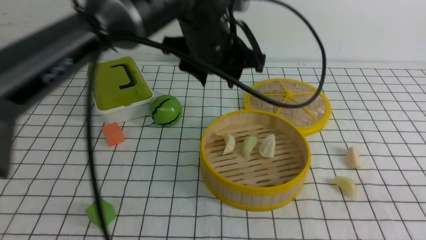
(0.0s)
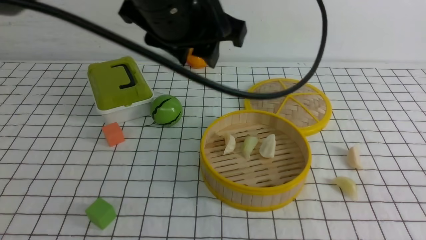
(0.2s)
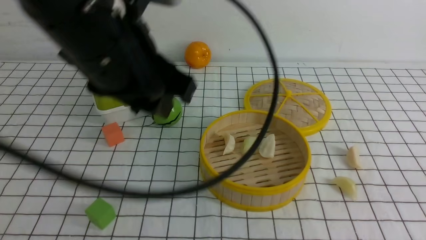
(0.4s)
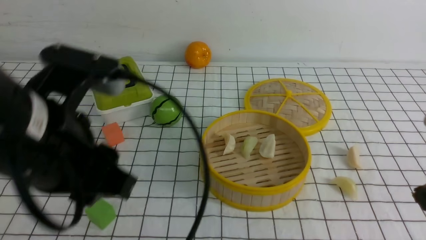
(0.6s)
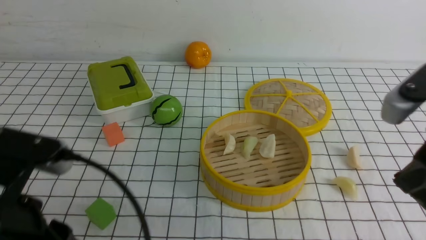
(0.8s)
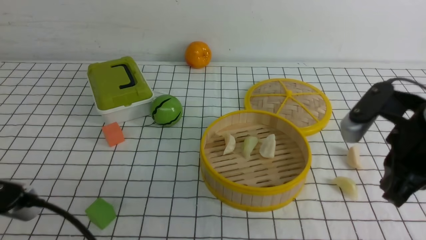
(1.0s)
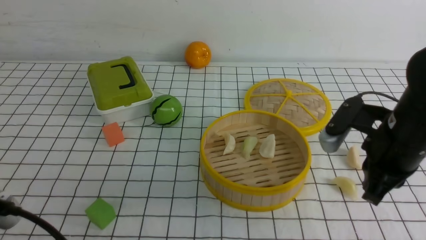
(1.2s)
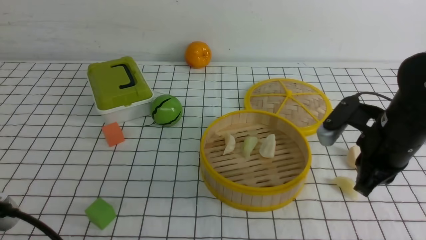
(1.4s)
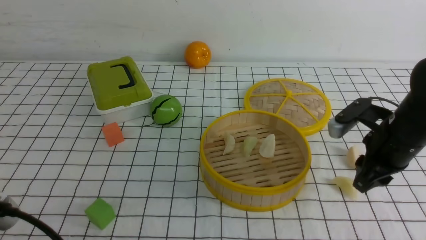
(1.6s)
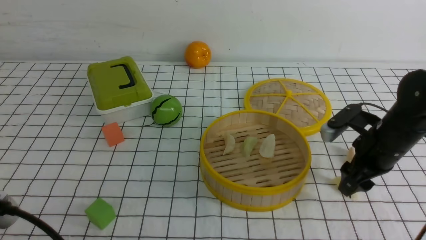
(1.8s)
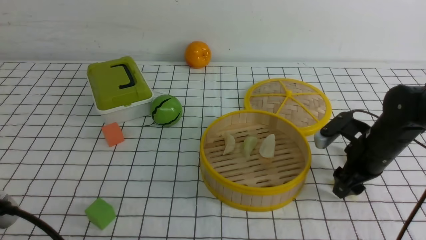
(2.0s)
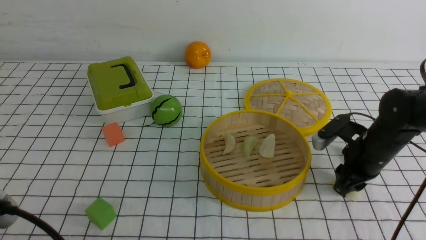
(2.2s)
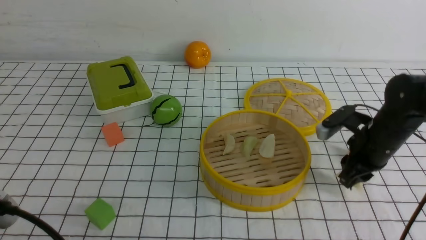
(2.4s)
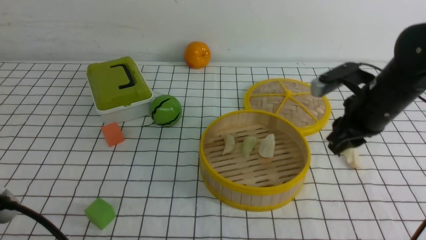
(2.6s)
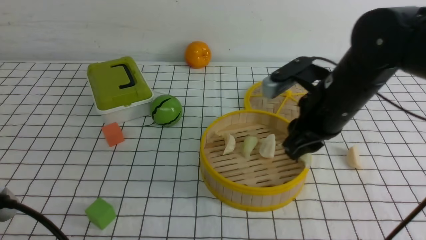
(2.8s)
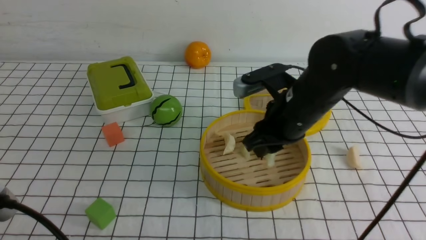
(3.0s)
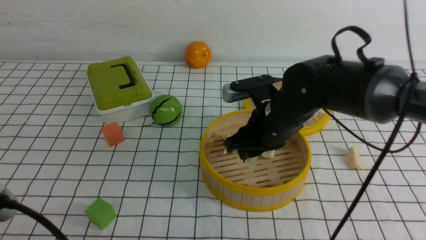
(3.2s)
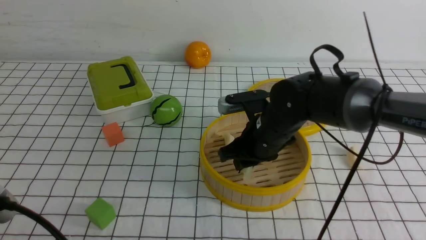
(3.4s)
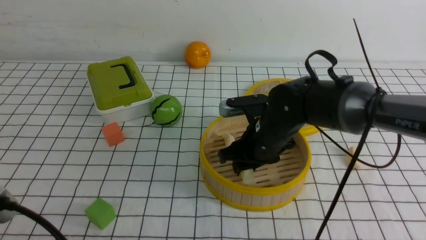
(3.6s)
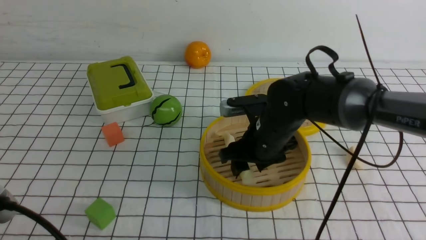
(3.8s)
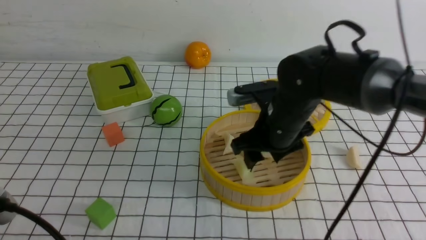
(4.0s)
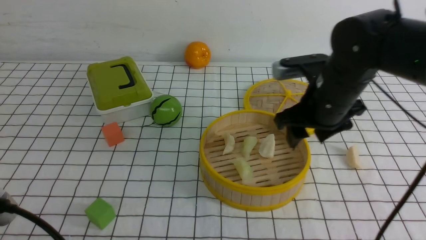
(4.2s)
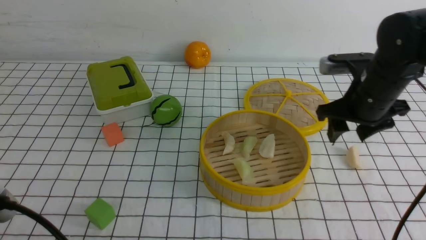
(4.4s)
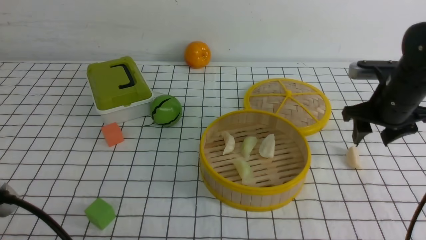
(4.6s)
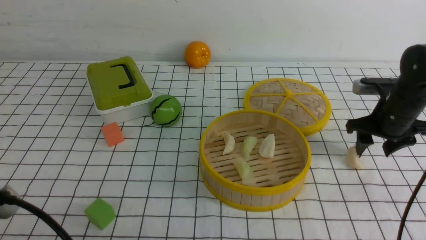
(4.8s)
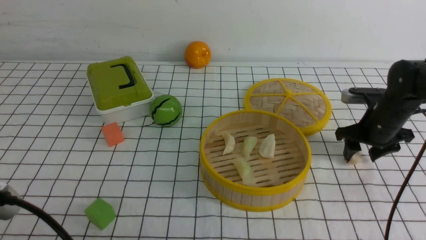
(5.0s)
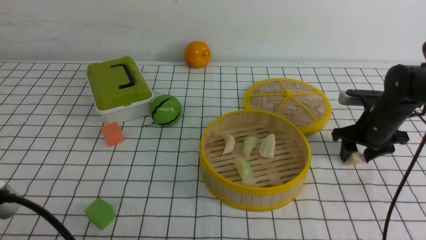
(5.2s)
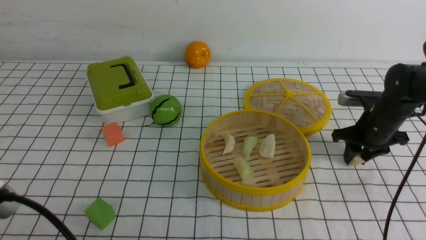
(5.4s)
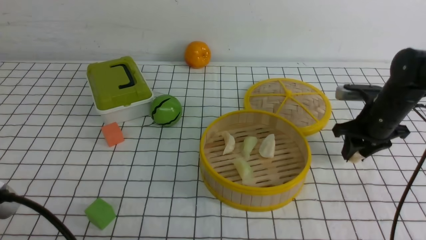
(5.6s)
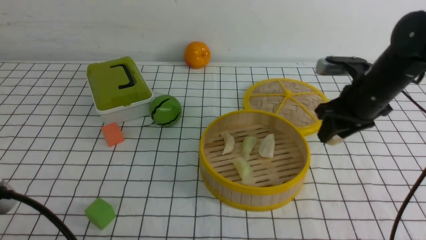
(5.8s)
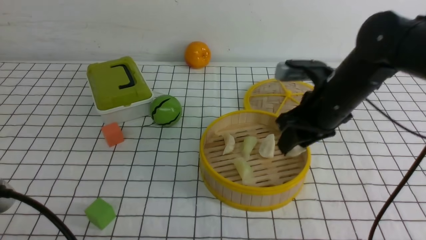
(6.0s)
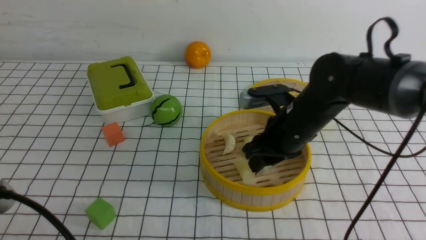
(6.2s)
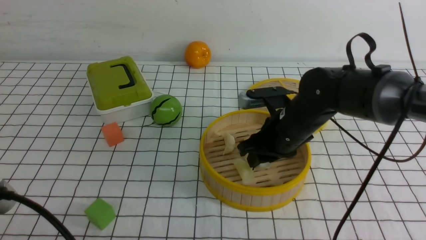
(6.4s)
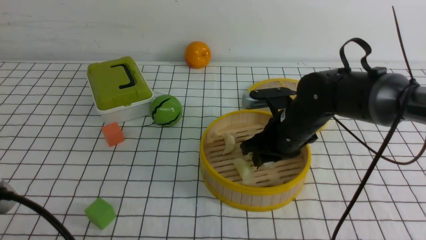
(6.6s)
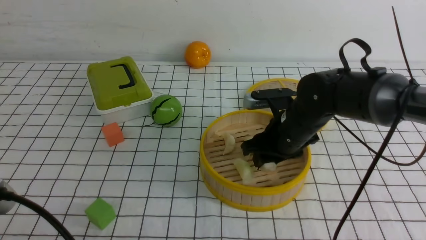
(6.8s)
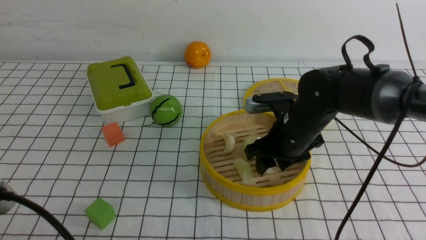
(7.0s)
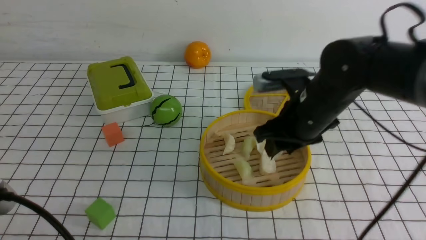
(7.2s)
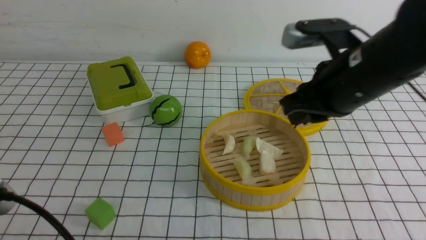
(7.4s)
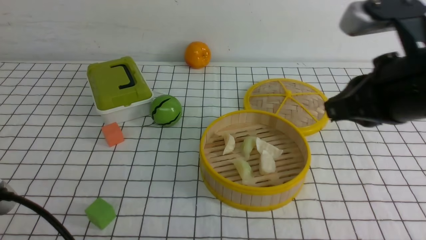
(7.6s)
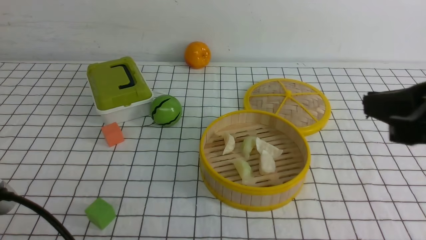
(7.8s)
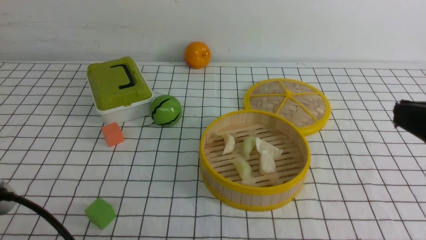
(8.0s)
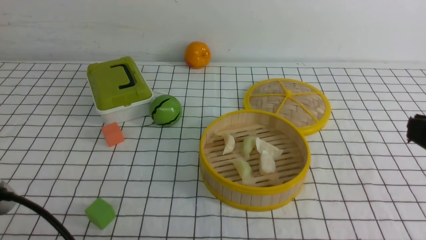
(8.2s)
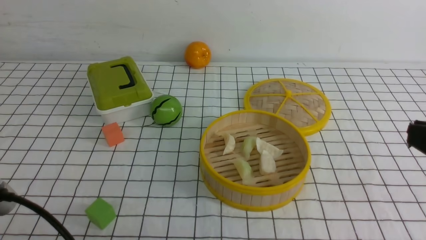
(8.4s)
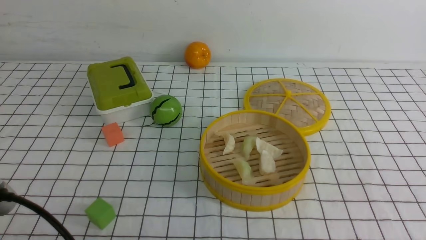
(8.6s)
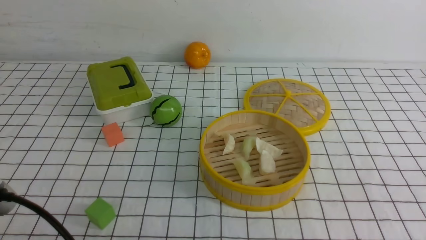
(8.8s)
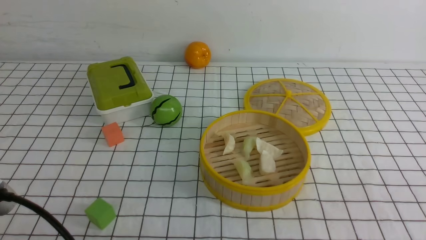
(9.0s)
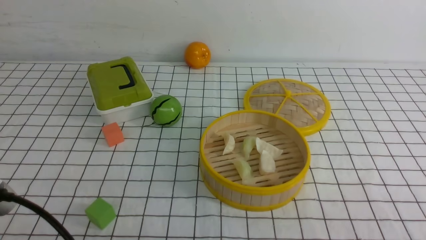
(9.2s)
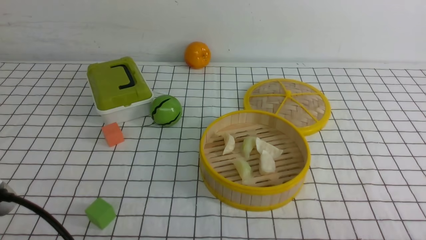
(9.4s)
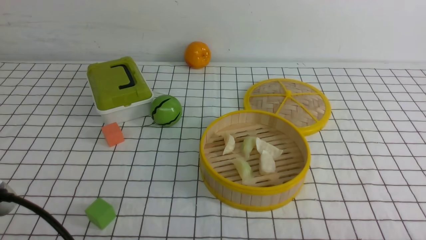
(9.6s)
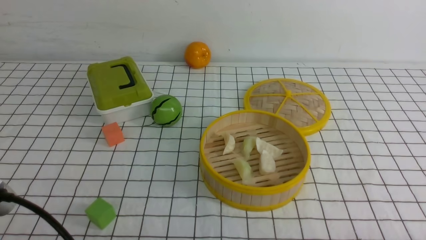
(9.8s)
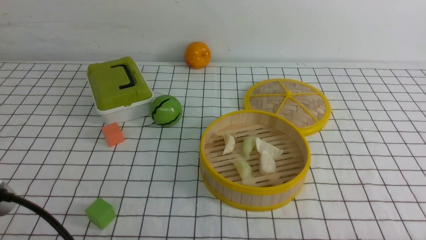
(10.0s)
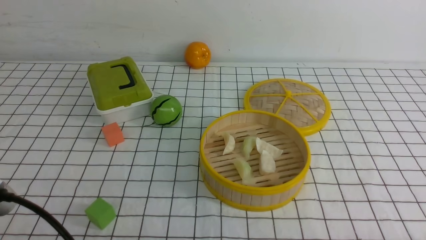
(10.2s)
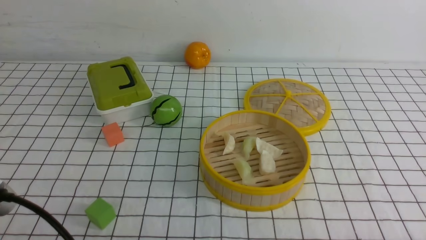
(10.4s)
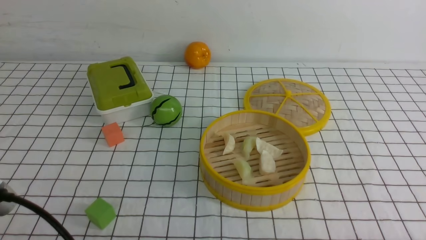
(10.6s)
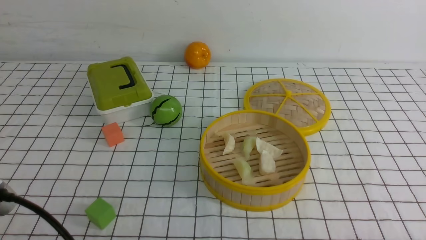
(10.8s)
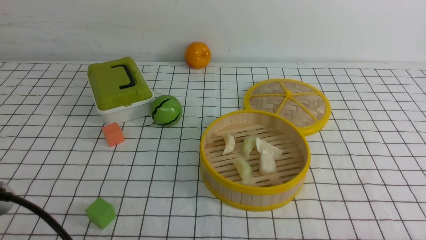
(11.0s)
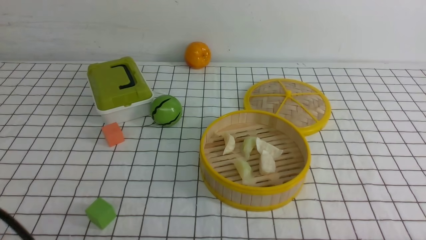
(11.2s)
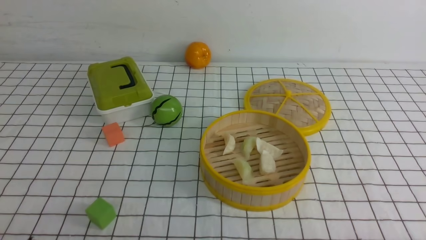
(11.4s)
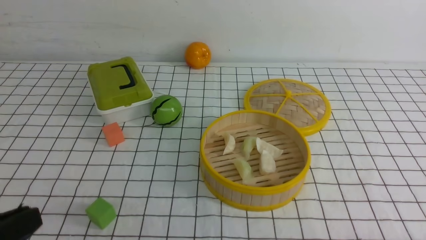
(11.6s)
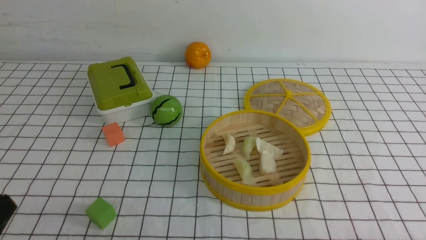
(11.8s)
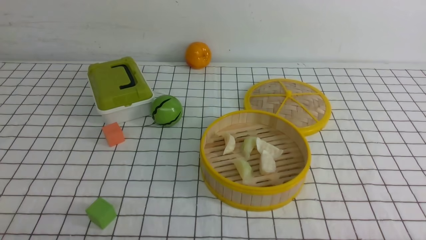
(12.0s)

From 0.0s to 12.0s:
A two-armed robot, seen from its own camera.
Task of the whole recording: put the dumplings into the steamer on the table with the white tablecloth.
Step, from 0.0s to 2.8s: use the right arm to grab a dumpling.
Step, from 3.0s to 4.0s: use the right arm to put the dumpling into the steamer.
Step, from 4.2s to 5.6s: use the right arm to grab a dumpling.
Step, from 5.8s to 7.6s: use the right arm to put the dumpling into the steamer.
From 0.0s to 1.6s: The right gripper moves forward and downward, about 25 cm, and opens. Meanwhile the left gripper heads backward and to the left, covering about 35 cm, and closes its fingers.
From 1.6s to 3.0s: The right gripper goes roughly 15 cm to the left.
From 3.0s to 4.4s: The right gripper is displaced to the right by about 10 cm, and opens.
From 4.4s to 6.0s: The right gripper is displaced to the left by approximately 5 cm, and closes up.
From 6.0s to 7.6s: The right gripper goes approximately 20 cm backward and upward, and closes.
From 7.6s to 9.0s: The right gripper shifts about 20 cm backward, to the right and downward.
From 10.4s to 12.0s: The left gripper travels downward and to the left by some 10 cm.

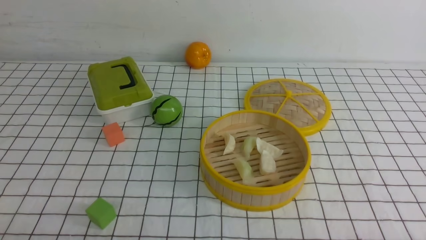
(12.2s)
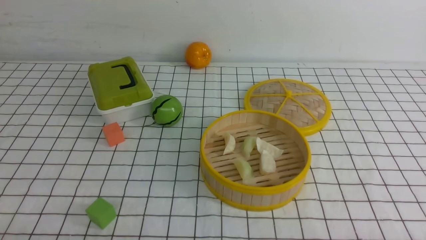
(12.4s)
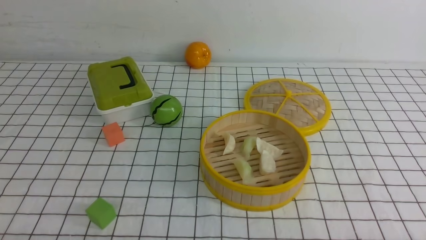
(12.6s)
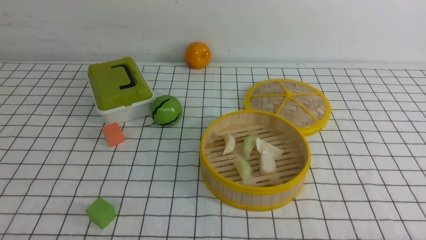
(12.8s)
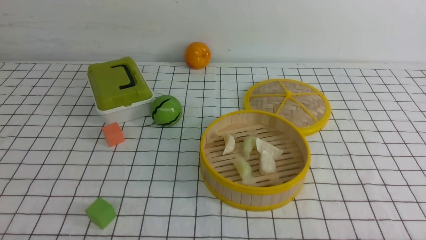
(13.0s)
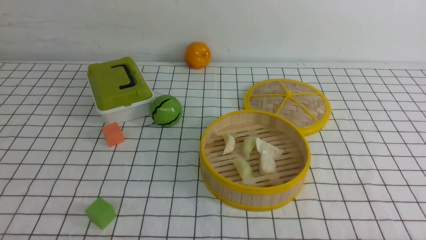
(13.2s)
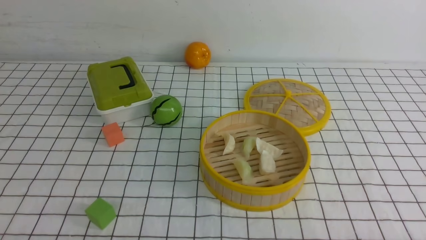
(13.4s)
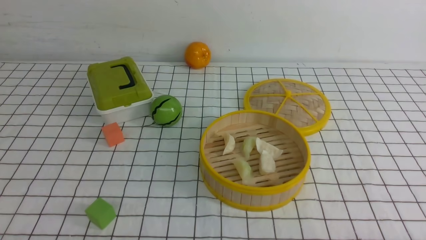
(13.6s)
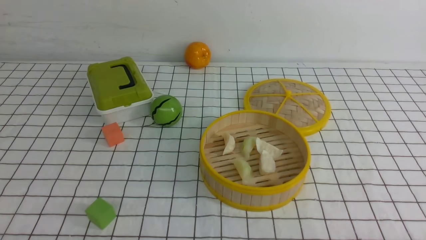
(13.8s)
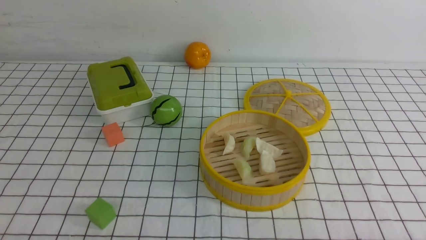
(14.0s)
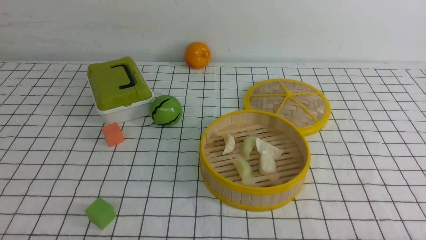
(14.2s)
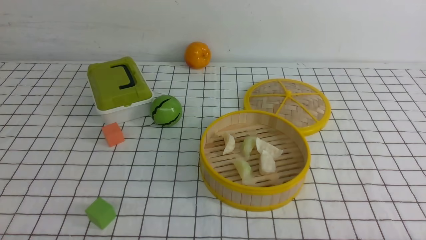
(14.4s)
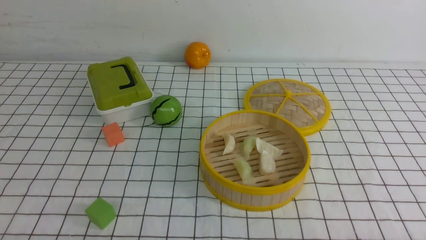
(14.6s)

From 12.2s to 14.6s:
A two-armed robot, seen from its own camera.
Task of the whole recording: put the dumplings into the steamer on the table with the white tablecloth.
From 13.4s to 14.6s: Both grippers stay about where they are.
